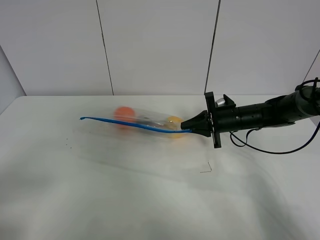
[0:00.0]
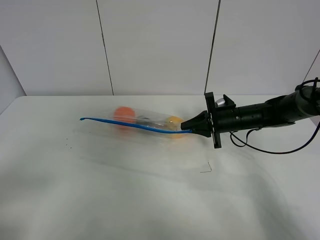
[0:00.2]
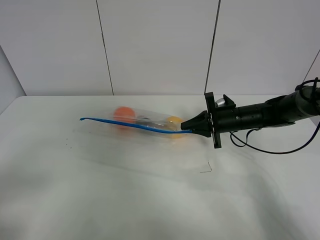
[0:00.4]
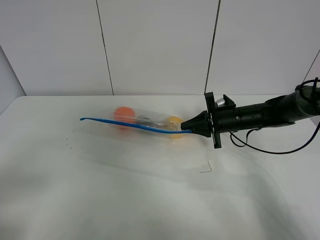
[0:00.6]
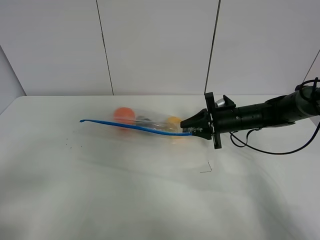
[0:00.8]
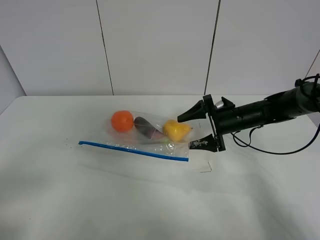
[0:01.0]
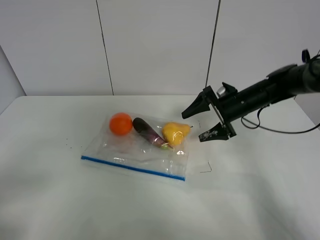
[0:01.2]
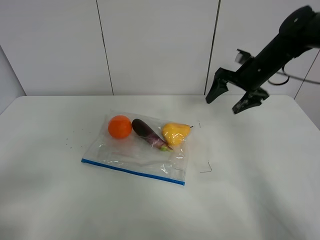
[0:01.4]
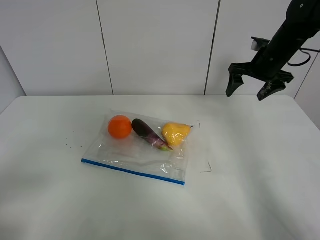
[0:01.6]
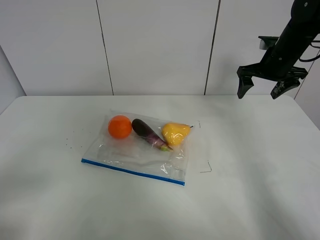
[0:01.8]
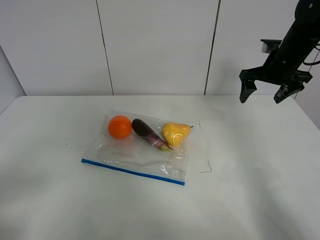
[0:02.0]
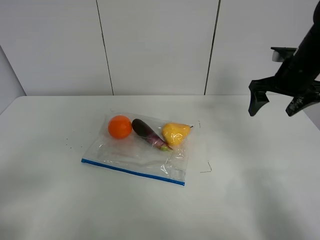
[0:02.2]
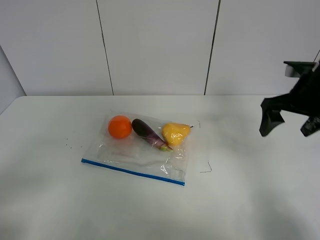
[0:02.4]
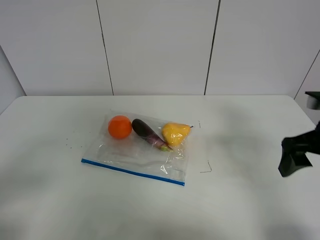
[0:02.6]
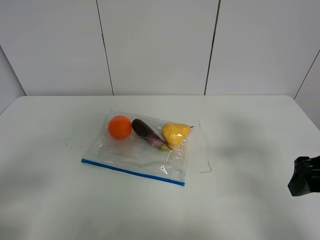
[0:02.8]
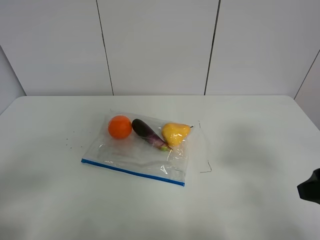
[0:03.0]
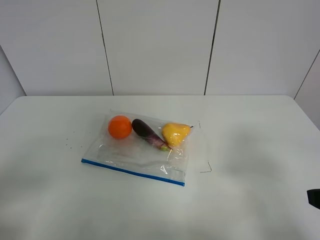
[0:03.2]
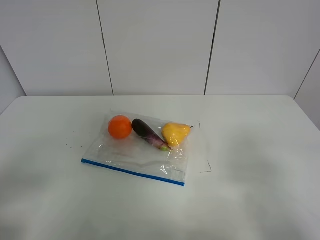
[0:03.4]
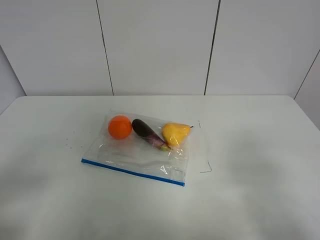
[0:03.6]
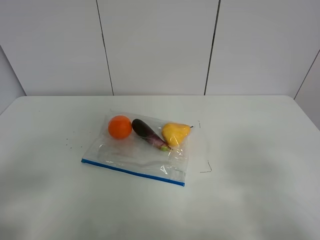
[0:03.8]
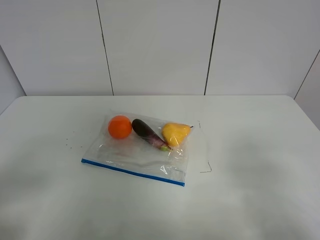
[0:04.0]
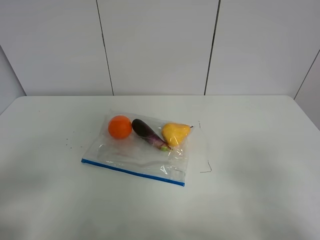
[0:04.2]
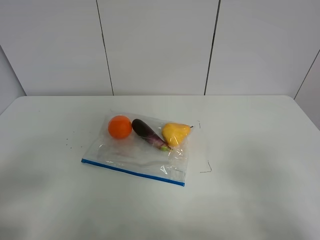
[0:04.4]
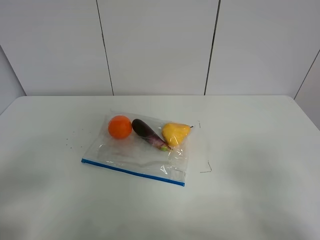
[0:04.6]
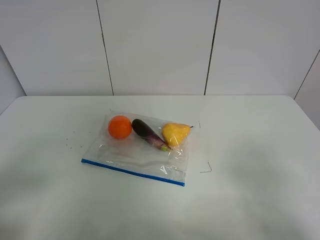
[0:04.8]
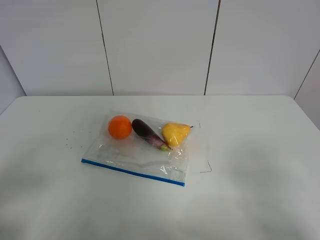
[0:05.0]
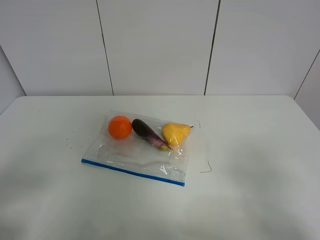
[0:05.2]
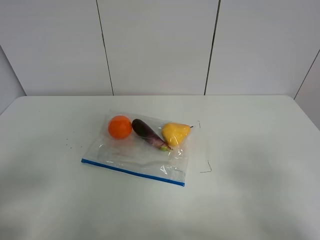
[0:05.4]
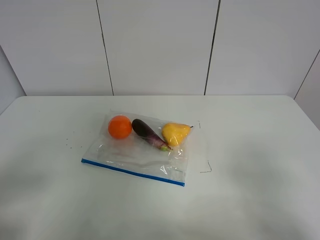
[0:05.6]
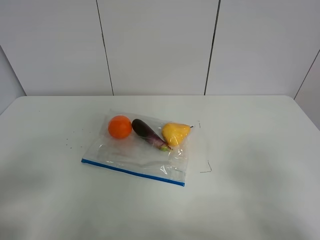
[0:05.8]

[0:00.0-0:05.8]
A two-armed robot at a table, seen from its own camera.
0.0 to 1.4 s: The right gripper goes roughly 15 cm upward and forward, and opens up.
1.4 to 2.8 s: The right gripper heads backward, covering about 25 cm.
2.8 to 4.4 s: The right gripper goes about 15 cm backward.
4.4 to 5.8 s: Both grippers stay put.

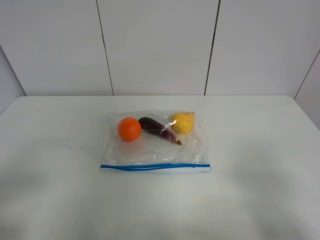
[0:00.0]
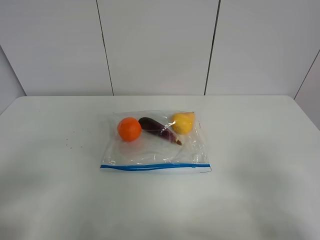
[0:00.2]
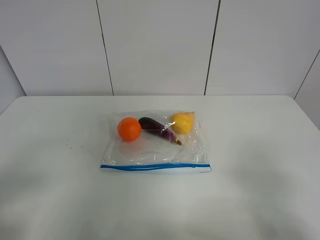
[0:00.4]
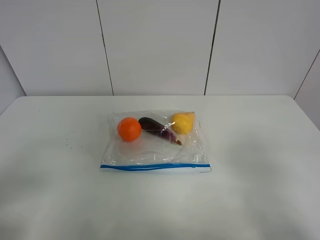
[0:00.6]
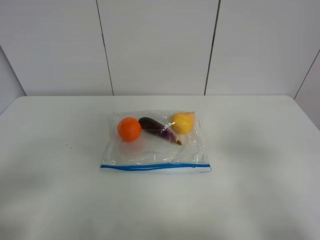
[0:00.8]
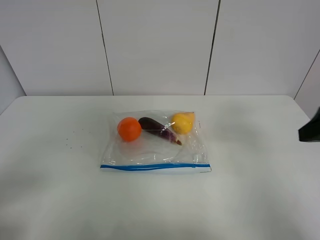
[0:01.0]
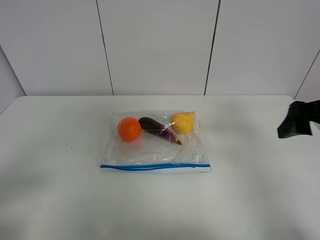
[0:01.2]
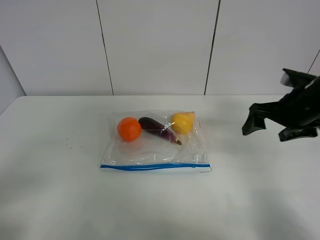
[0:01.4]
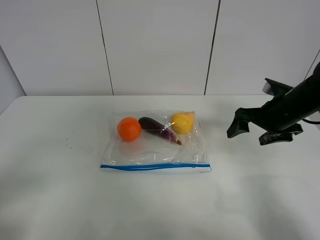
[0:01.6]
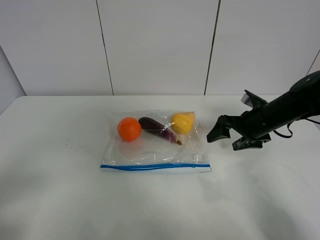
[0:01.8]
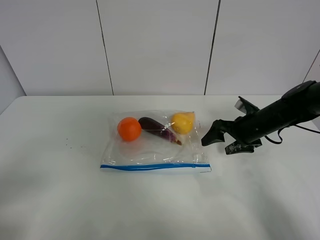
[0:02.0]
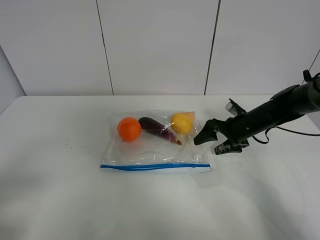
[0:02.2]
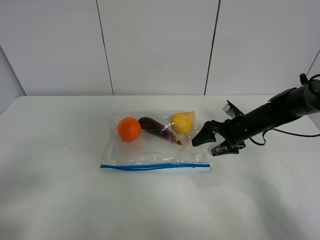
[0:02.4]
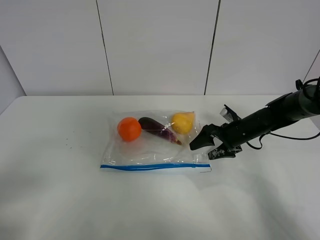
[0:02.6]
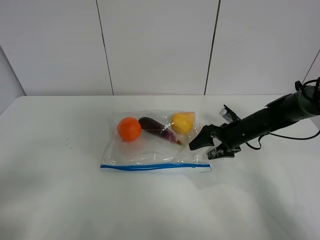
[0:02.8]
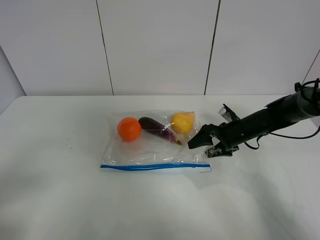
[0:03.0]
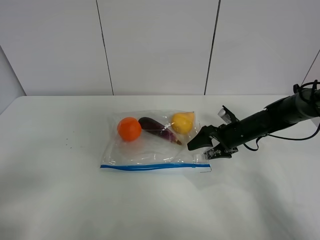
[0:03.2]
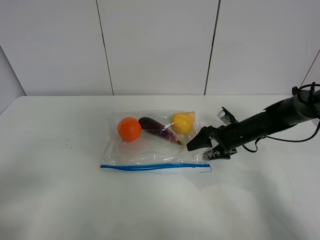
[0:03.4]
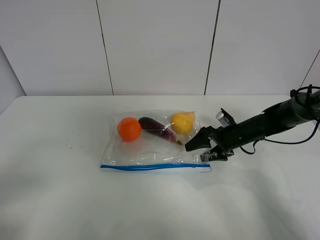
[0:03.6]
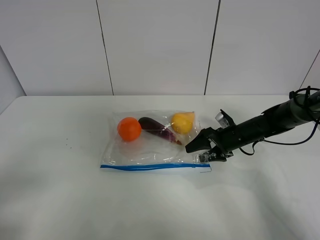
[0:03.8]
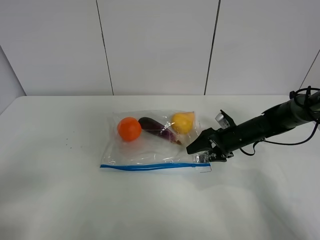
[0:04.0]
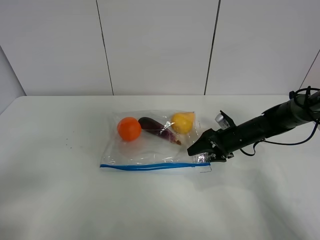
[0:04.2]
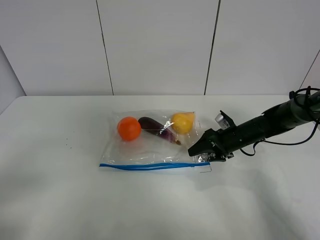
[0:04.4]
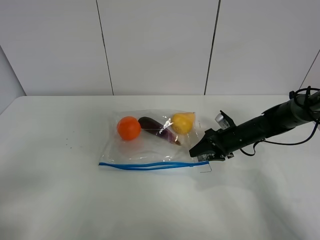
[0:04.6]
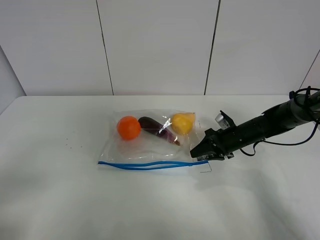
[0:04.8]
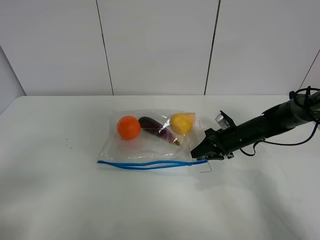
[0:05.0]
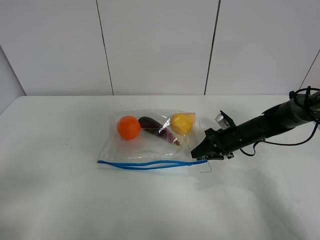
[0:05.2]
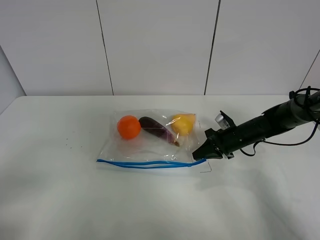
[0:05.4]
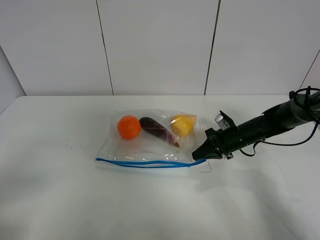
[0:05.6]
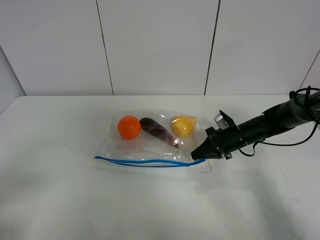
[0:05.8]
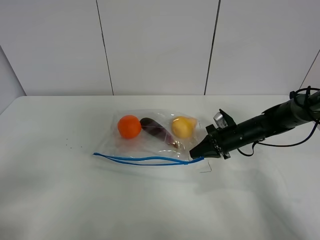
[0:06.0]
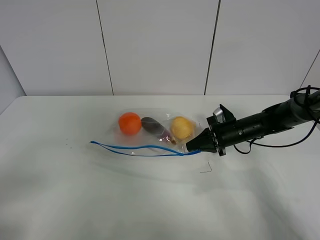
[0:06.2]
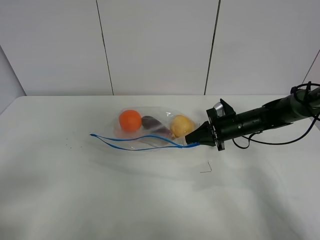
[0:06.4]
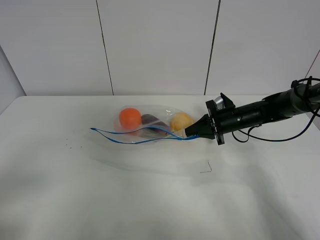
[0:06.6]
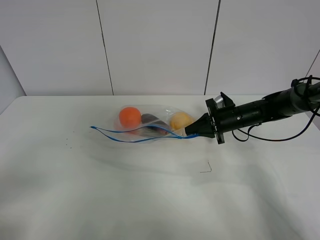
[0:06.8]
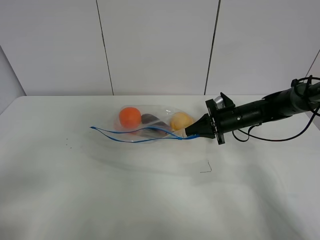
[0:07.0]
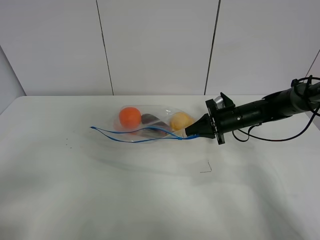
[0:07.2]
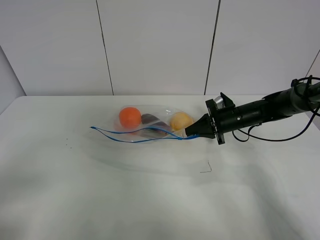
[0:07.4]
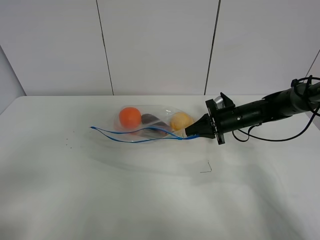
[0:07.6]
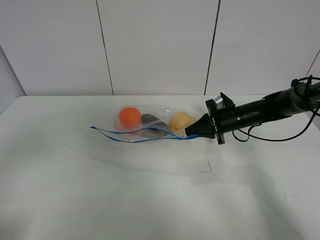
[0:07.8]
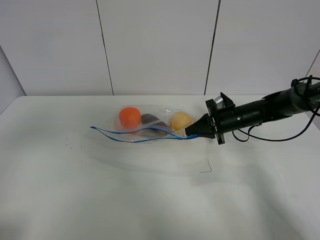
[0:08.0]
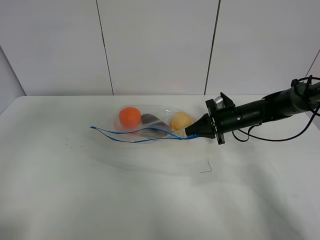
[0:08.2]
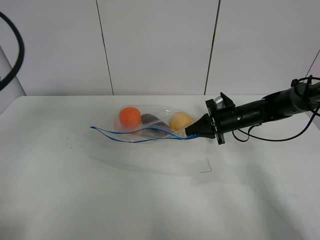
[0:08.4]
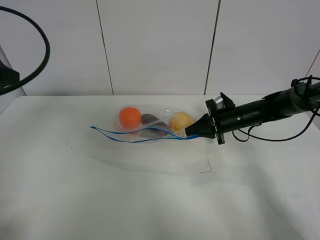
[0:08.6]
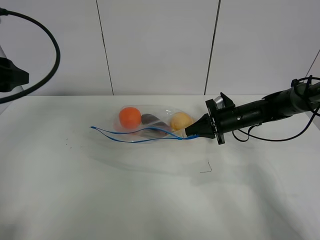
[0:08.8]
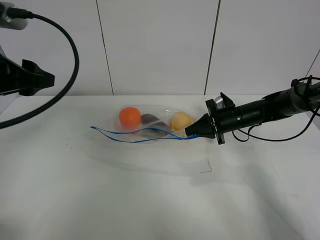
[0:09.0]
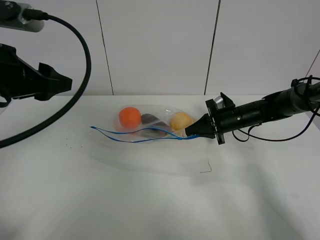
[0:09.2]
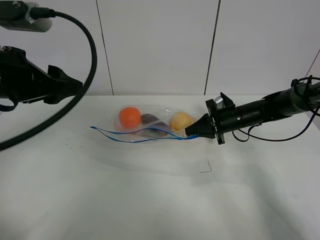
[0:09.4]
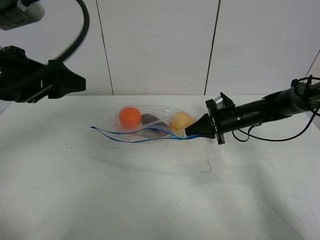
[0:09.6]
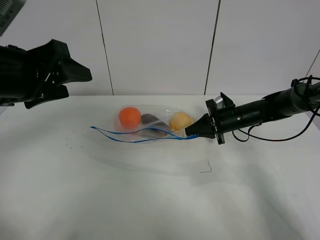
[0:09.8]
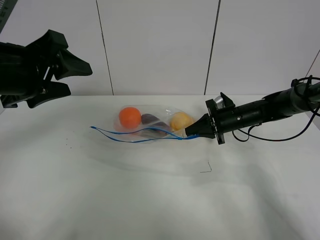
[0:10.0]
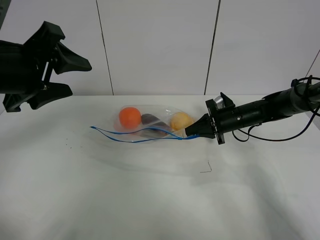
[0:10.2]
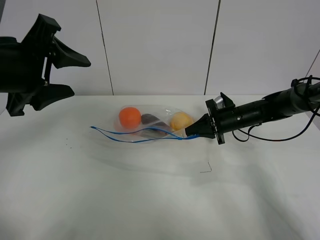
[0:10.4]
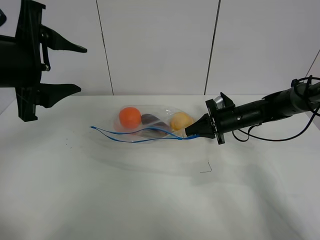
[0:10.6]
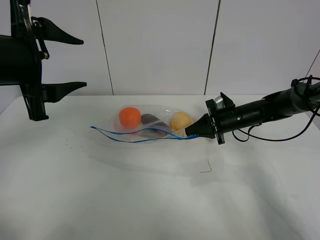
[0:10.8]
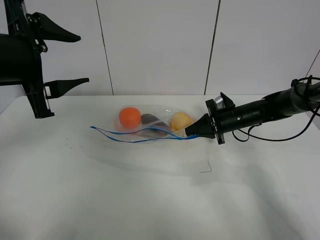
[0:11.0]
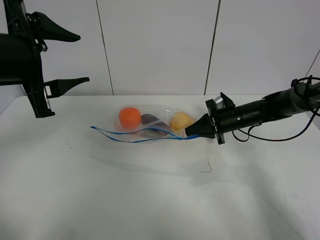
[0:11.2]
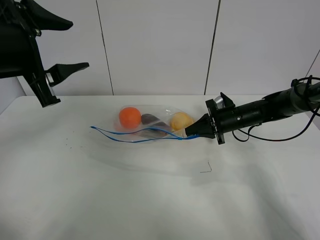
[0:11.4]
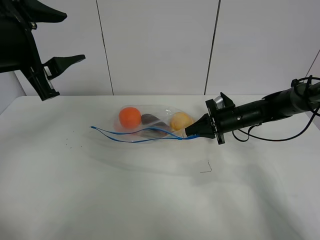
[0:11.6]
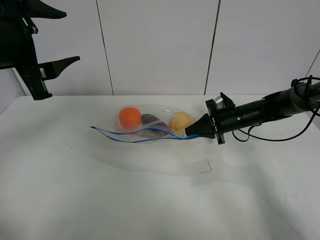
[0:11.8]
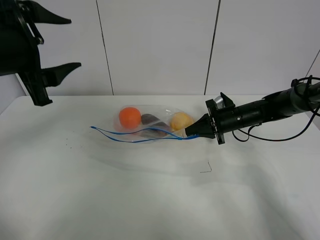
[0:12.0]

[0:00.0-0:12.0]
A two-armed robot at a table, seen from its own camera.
Step, 0.0 to 5.2 s: Grasp the fruit bag with right gripper.
Step, 5.4 to 7.2 s: Lift the fruit bag with your right gripper.
0.0 to 1.6 s: The right gripper goes roughly 30 cm forward.
1.6 to 3.0 s: The right gripper is displaced downward and forward by roughly 10 cm.
3.0 to 4.4 s: The grippers make only small movements.
4.4 to 6.0 s: The right gripper closes its fingers.
6.0 to 7.6 s: The grippers move only a little.
7.6 to 9.0 s: The left gripper moves forward, roughly 20 cm.

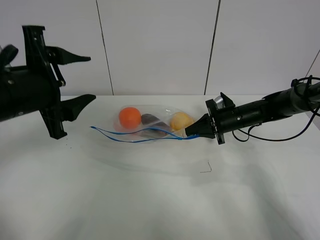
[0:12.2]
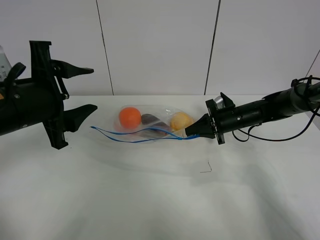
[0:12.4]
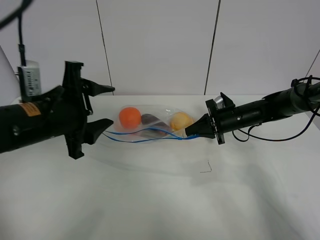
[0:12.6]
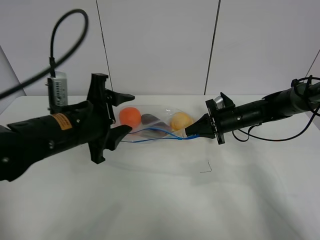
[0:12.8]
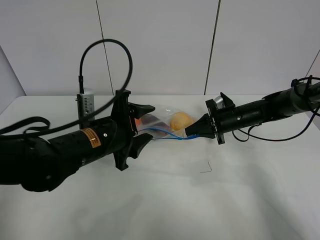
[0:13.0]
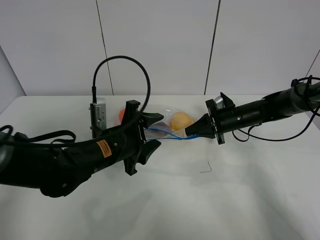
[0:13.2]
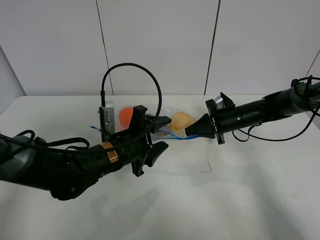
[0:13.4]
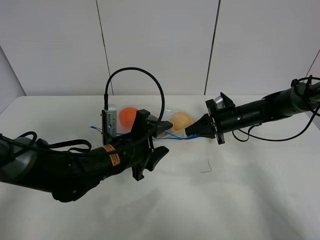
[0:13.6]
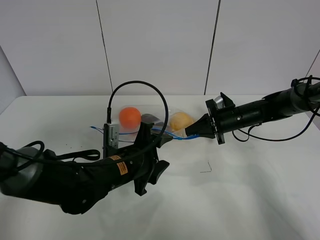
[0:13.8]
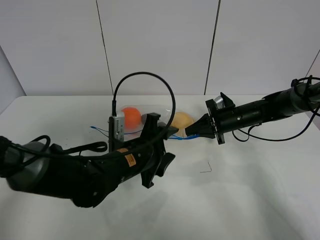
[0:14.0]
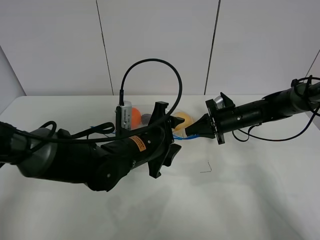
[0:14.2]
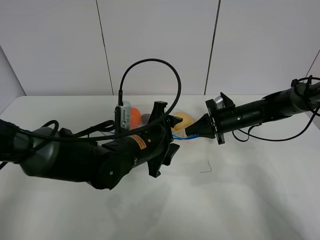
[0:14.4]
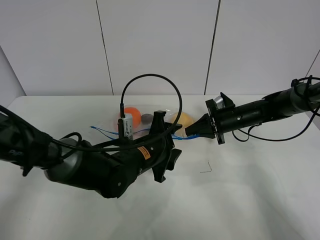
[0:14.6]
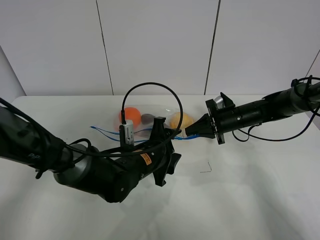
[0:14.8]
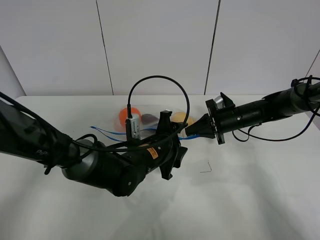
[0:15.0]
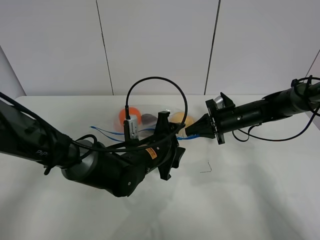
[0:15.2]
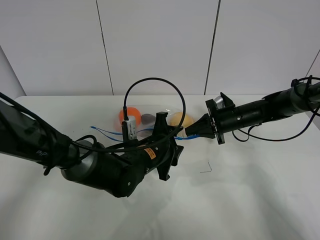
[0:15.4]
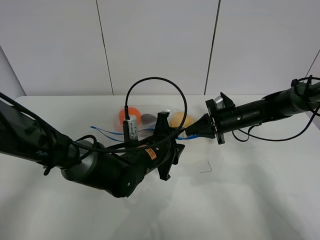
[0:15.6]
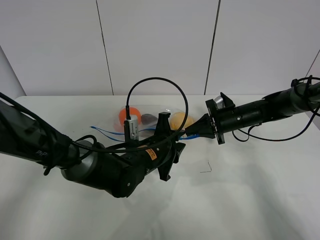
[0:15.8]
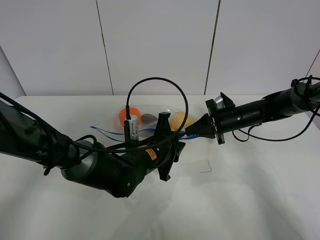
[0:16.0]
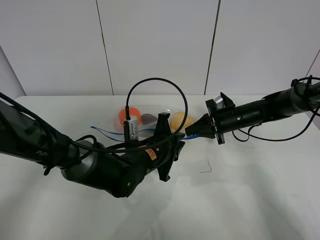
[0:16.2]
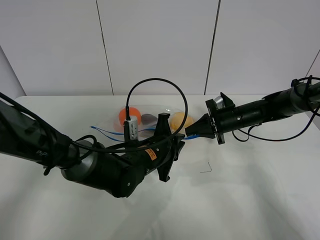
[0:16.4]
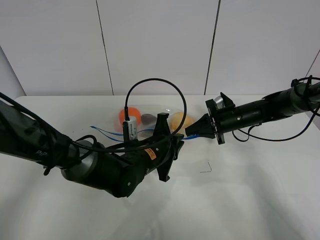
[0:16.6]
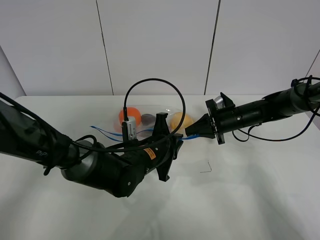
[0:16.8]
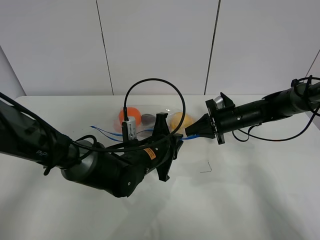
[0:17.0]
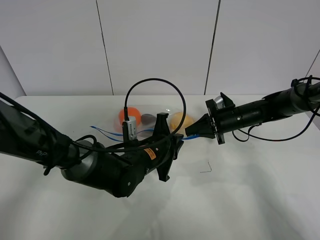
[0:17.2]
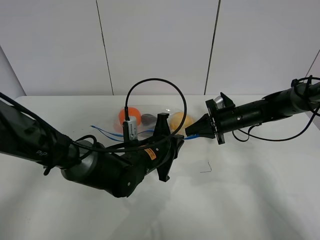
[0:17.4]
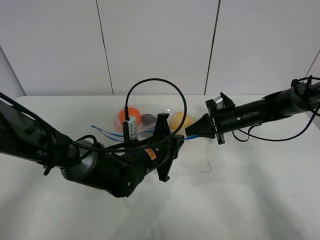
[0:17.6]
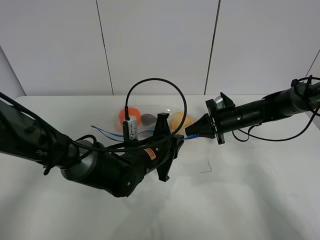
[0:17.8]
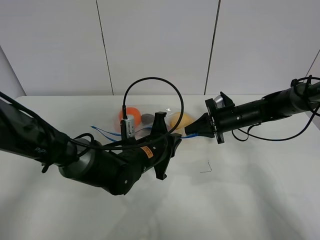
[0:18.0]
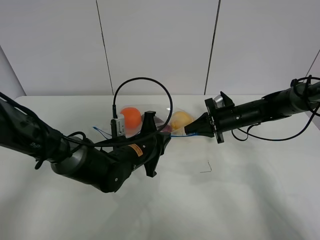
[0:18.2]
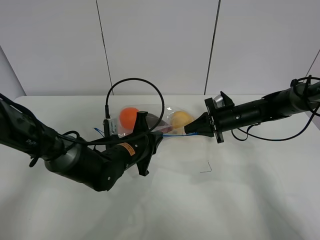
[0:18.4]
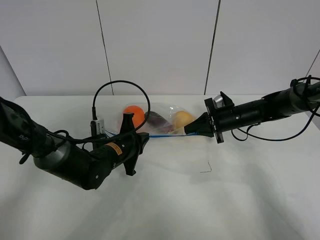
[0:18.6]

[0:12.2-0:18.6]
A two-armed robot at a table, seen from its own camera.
12.2 to 13.8 s: The left gripper shifts some 20 cm downward and to the right.
13.8 to 15.4 s: The left gripper shifts by roughly 5 cm.
15.4 to 17.0 s: The left gripper closes up.
17.0 to 18.6 s: The left gripper travels to the left by approximately 10 cm.
